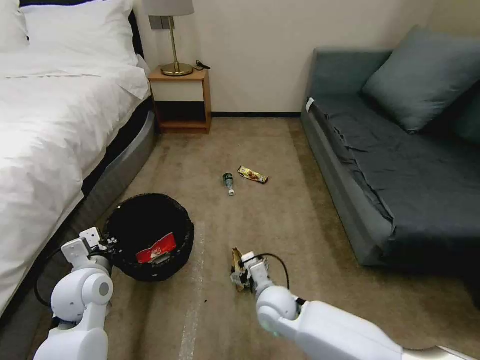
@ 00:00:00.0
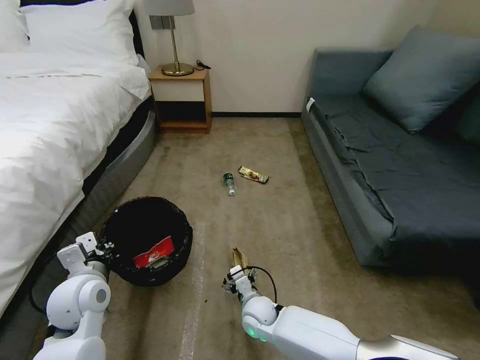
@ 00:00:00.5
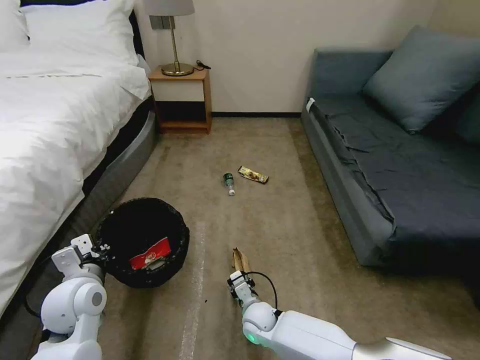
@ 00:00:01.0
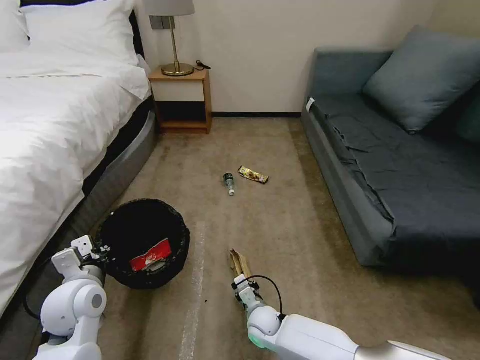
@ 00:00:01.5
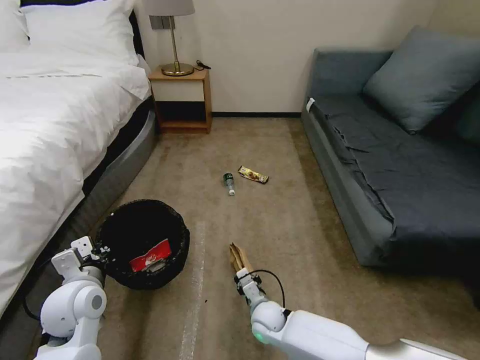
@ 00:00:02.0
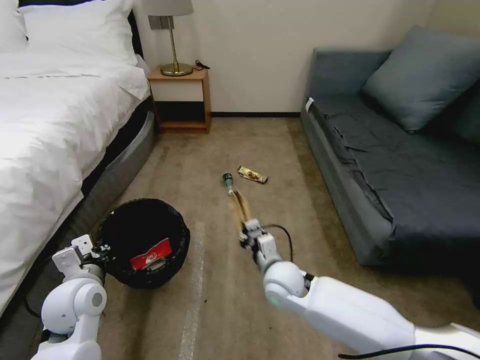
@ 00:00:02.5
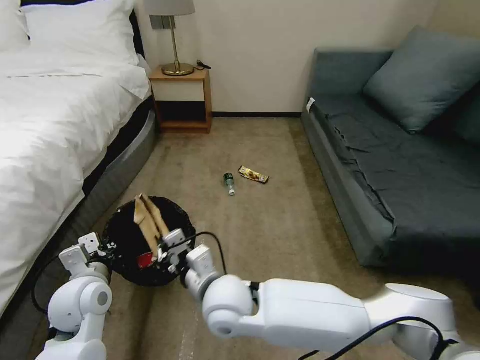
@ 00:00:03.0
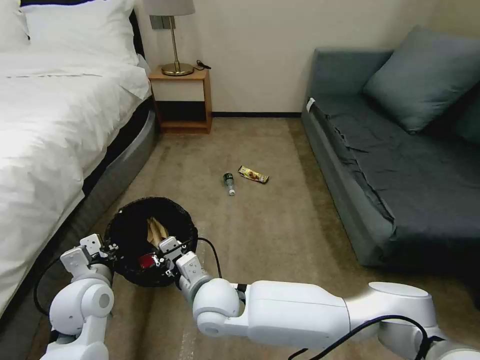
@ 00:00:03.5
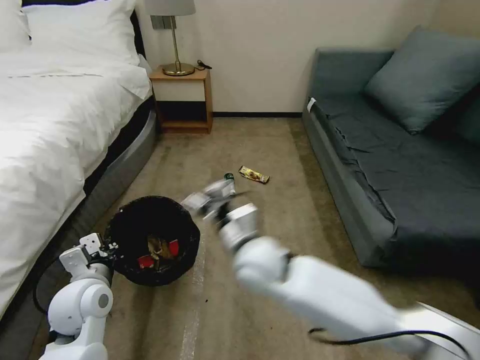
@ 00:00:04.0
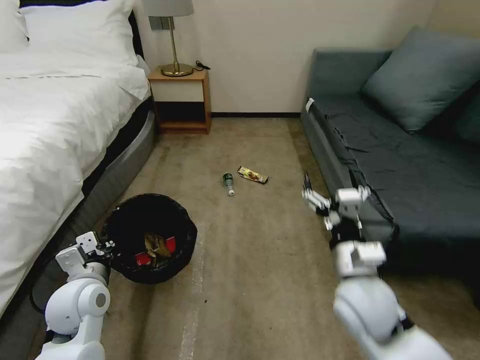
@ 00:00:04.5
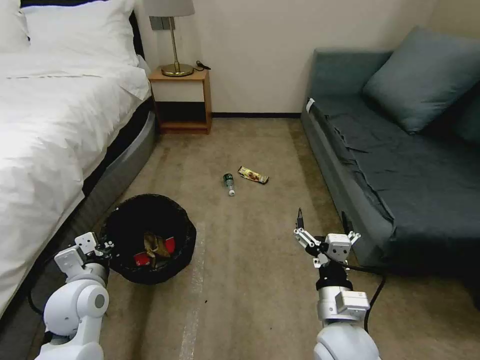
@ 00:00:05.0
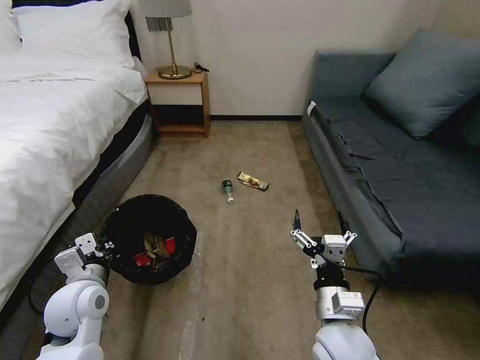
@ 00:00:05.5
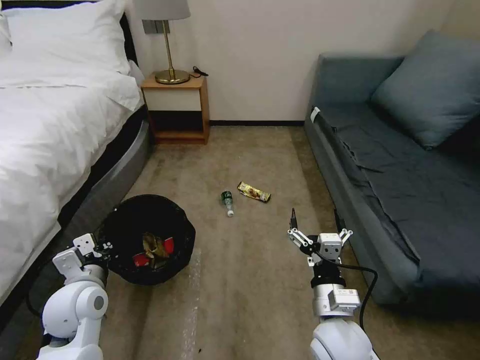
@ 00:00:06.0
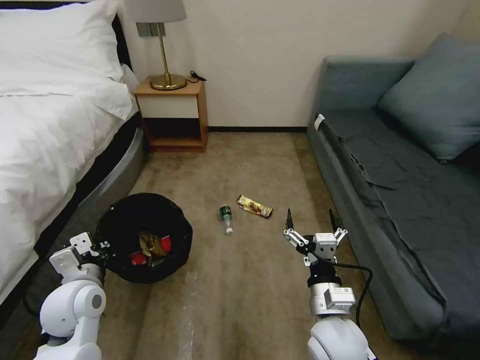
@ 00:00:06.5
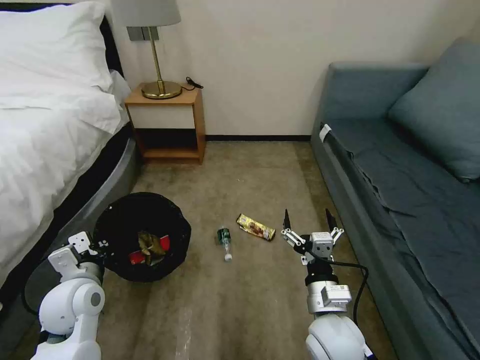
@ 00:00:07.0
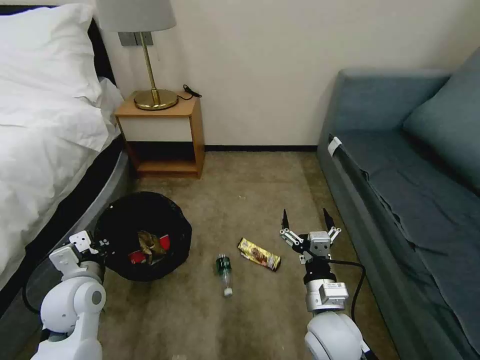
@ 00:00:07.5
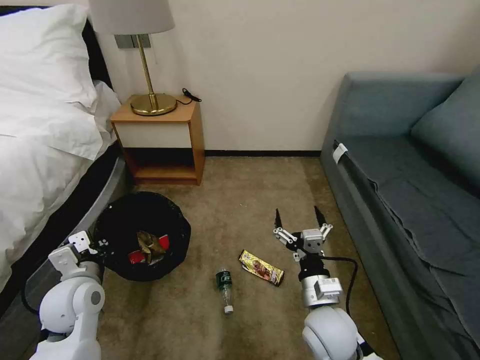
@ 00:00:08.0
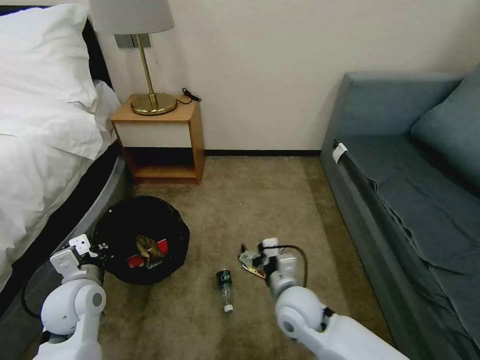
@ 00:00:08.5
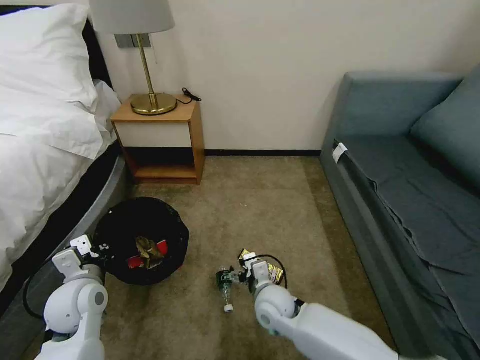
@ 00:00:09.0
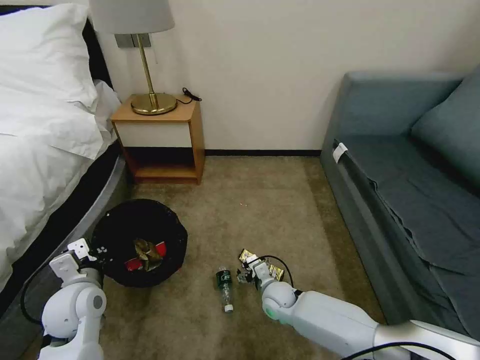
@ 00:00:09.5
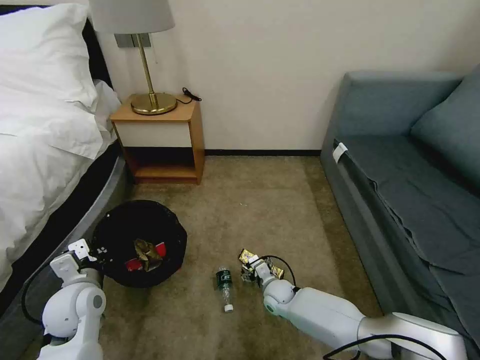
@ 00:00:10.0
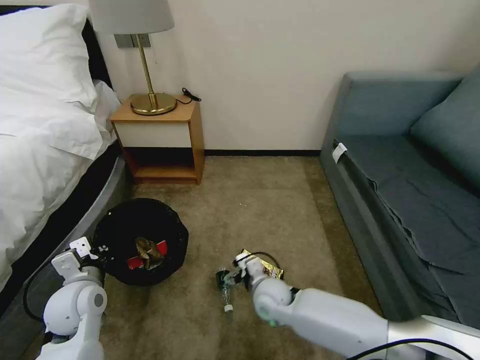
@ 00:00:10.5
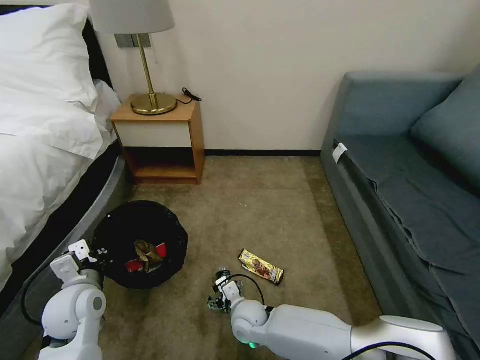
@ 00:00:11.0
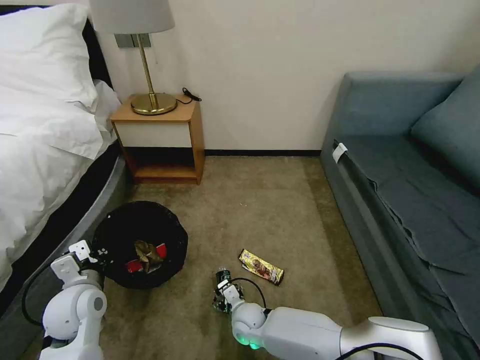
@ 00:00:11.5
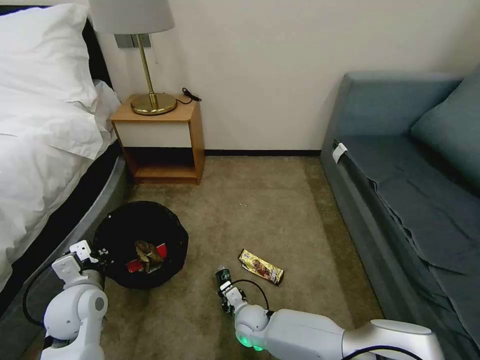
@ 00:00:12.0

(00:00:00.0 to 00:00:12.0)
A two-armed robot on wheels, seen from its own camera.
Task of the whole recording: Pick up the trash bin, then pick up the garbage on the floor and place it into the trash bin.
00:00:00.0 - 00:00:02.0: The right gripper goes approximately 10 cm downward, and closes its fingers.
00:00:02.0 - 00:00:04.0: The right gripper goes some 30 cm upward, and opens up.
00:00:04.0 - 00:00:06.0: The right gripper shifts approximately 20 cm to the right, backward and downward.
00:00:08.0 - 00:00:10.0: The right gripper heads downward and forward, covering about 25 cm.
00:00:10.0 - 00:00:12.0: The right gripper is displaced to the left and backward by roughly 10 cm, goes upward and returns, some 10 cm each way, and closes up.

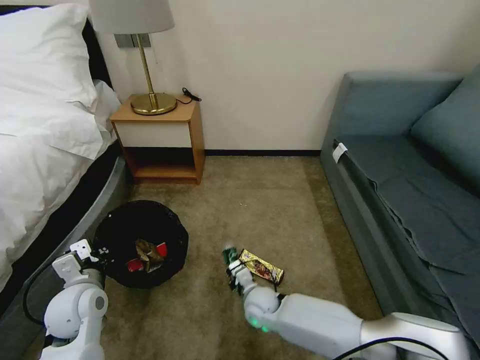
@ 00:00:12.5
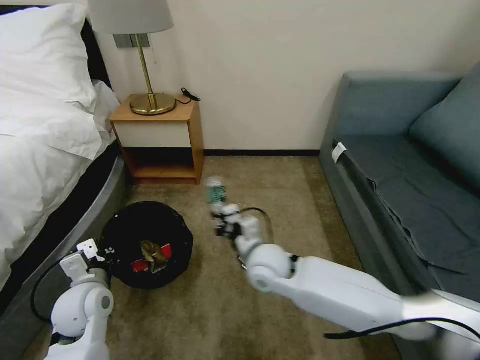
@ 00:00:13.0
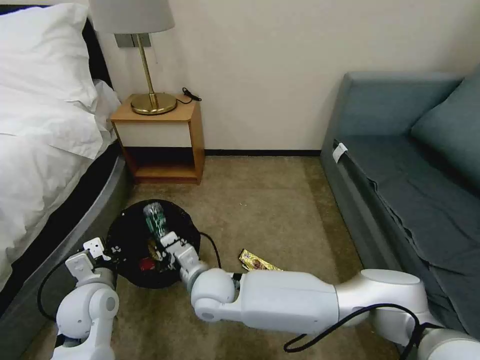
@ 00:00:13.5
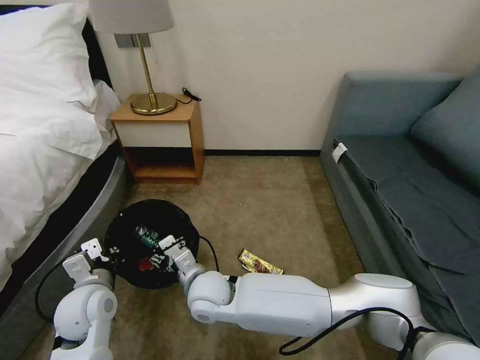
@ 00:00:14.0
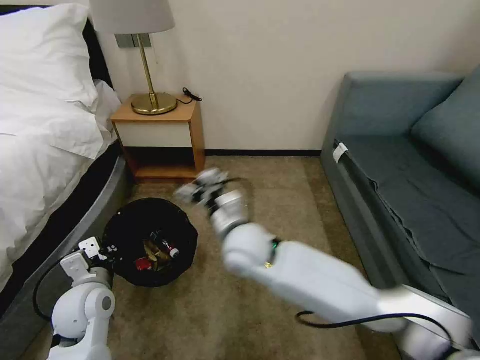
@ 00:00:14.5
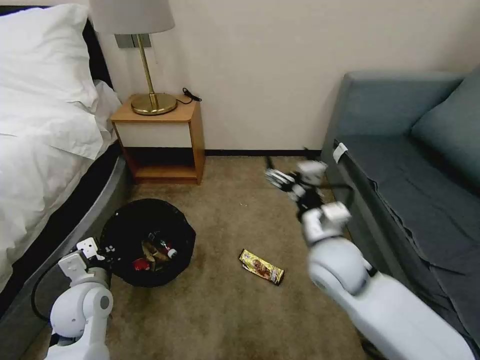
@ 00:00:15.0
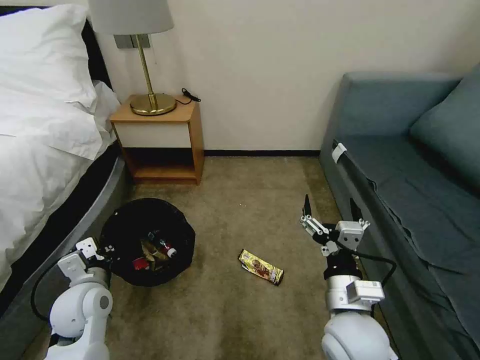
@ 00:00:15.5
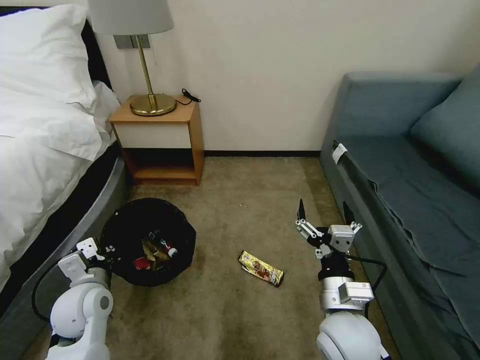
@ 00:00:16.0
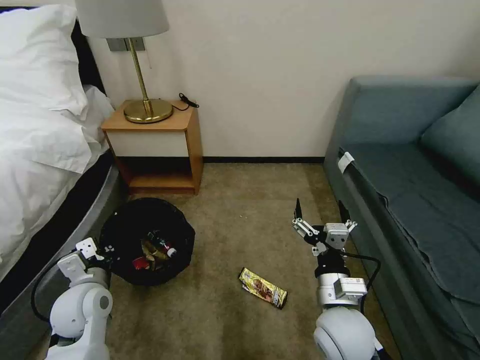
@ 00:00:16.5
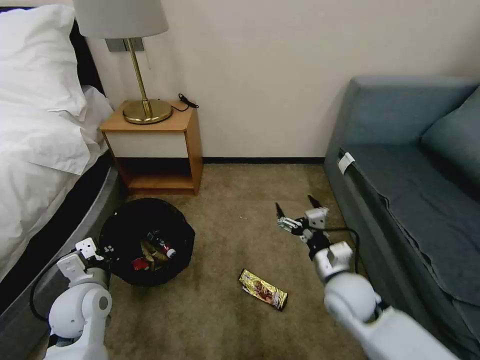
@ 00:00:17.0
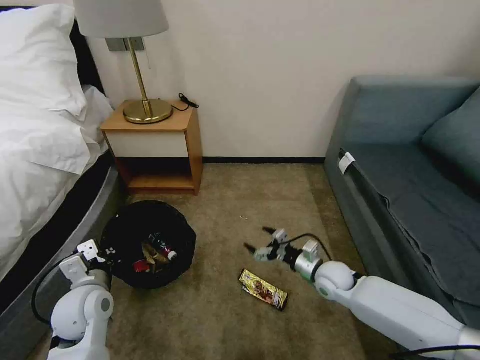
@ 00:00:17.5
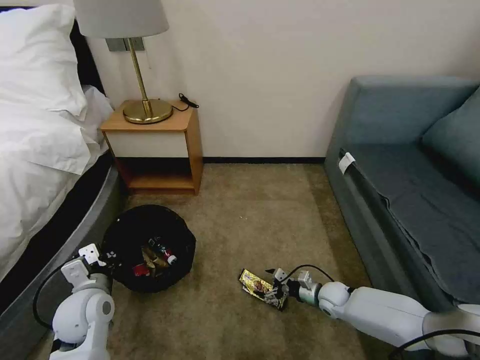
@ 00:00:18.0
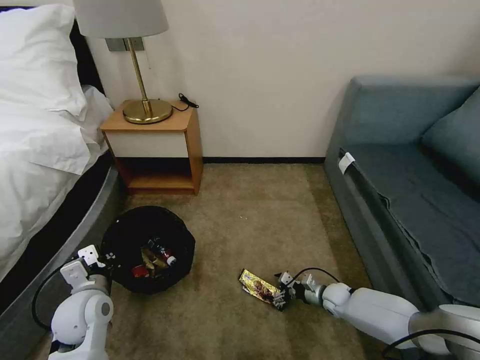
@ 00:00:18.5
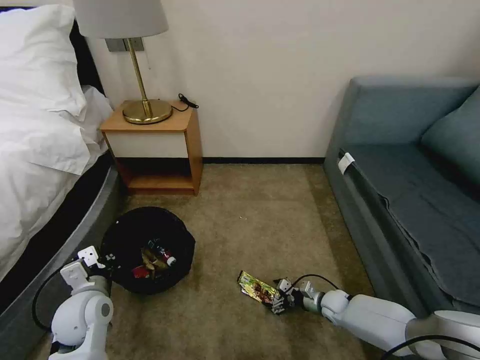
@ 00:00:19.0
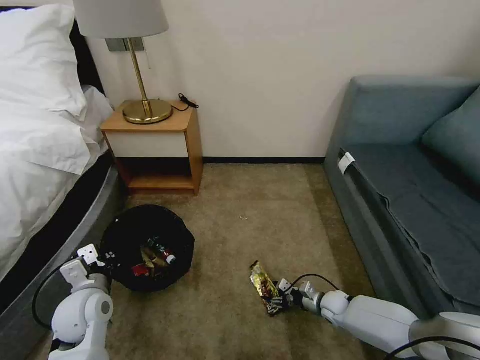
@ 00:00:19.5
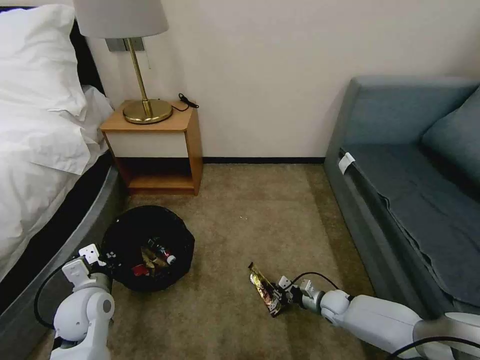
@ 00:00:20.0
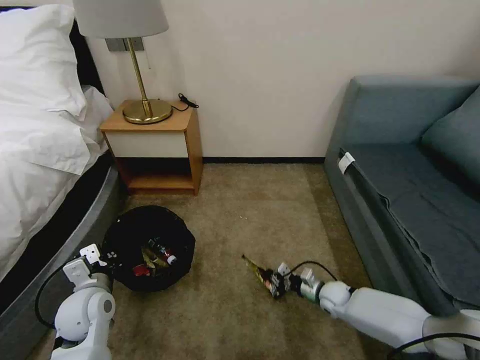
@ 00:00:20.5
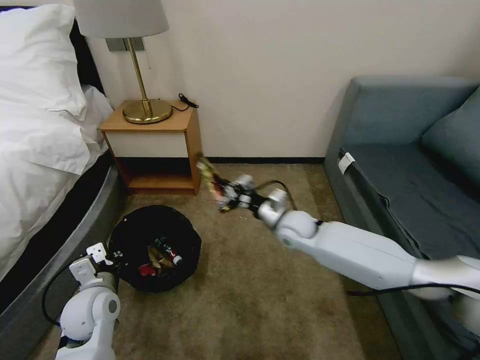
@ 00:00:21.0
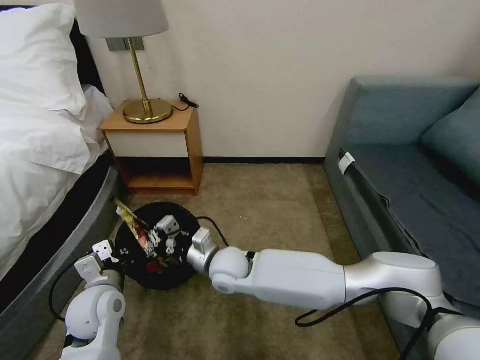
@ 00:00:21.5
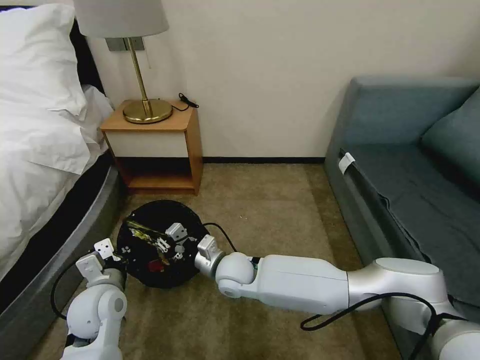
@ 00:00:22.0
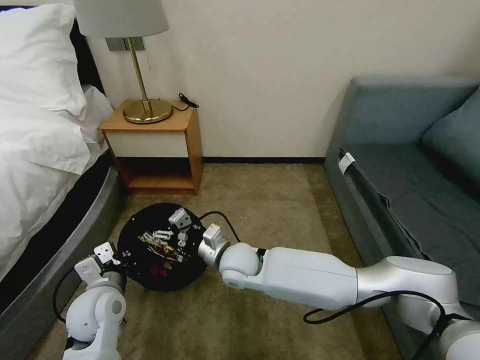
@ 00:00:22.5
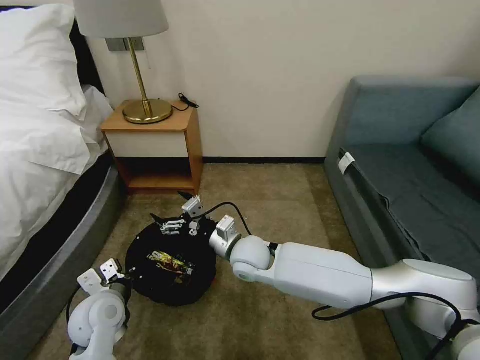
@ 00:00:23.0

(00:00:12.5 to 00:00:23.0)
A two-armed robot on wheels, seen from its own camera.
Task of the whole recording: Pick up the trash bin, then pick up the garbage on the floor and place it into the trash bin.
00:00:12.5 - 00:00:14.5: The right gripper goes up and down, approximately 25 cm each way, reversing 2 times, and opens its fingers.
00:00:14.5 - 00:00:16.5: The right gripper moves to the right and backward, approximately 20 cm.
00:00:16.5 - 00:00:19.0: The right gripper heads downward, forward and to the right, covering approximately 35 cm.
00:00:19.0 - 00:00:21.0: The right gripper shifts roughly 35 cm upward and to the left, and closes up.
00:00:21.0 - 00:00:23.0: The right gripper goes roughly 15 cm to the left and backward, and opens.

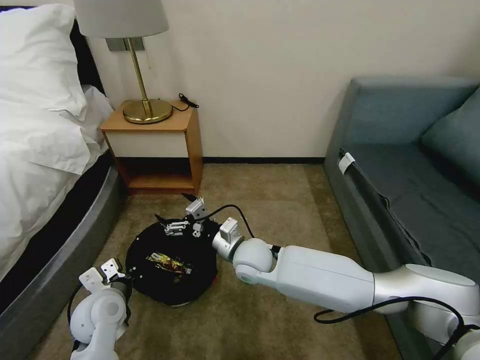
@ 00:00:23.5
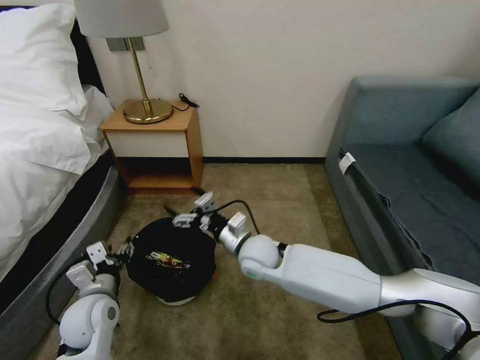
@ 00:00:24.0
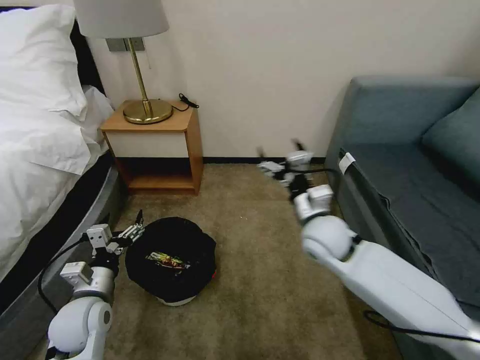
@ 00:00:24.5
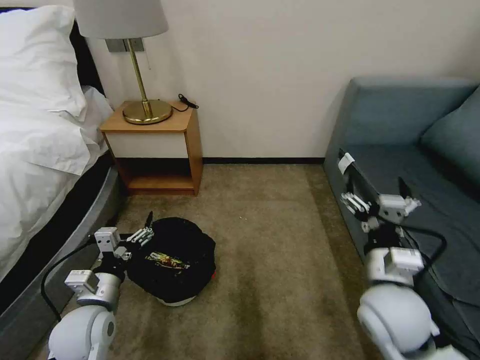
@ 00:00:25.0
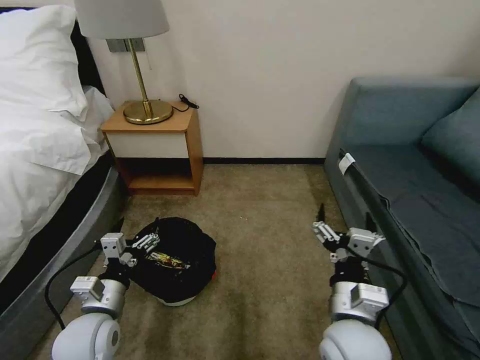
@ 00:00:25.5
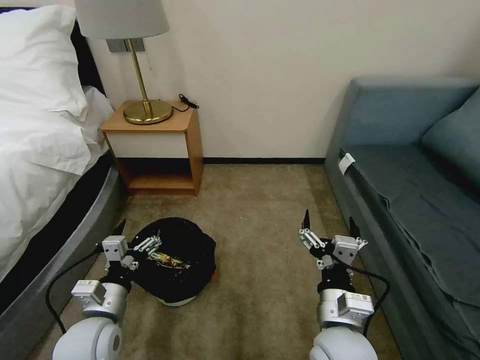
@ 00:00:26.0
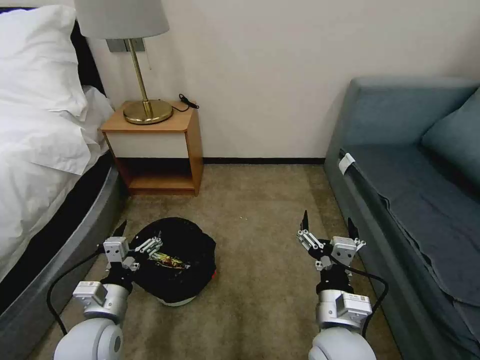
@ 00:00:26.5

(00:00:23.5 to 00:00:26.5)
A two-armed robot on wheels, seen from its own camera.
Task of the whole recording: Pick up the trash bin, then pick up the garbage on the floor and place it into the trash bin.
00:00:23.5 - 00:00:25.0: The right gripper shifts approximately 25 cm to the right and backward; the left gripper opens up.
00:00:25.0 - 00:00:26.5: The right gripper shifts approximately 10 cm to the left, backward and downward.
